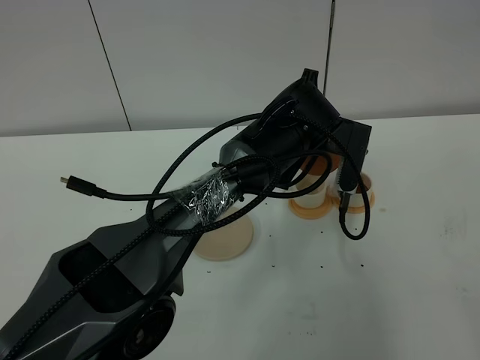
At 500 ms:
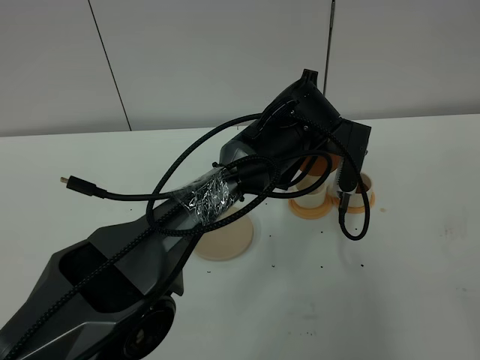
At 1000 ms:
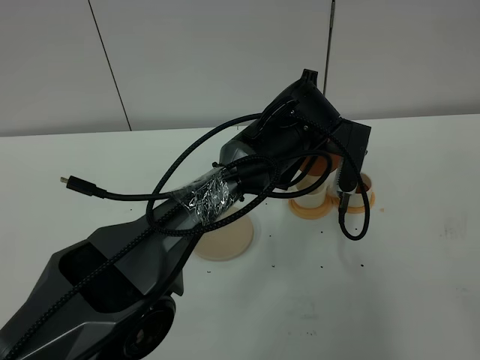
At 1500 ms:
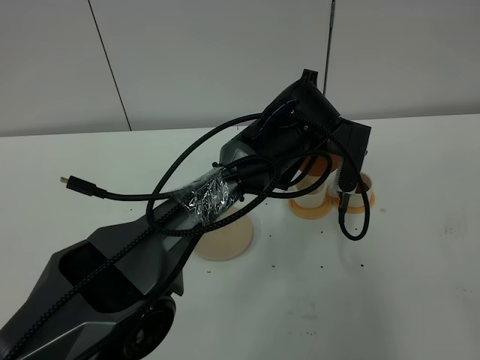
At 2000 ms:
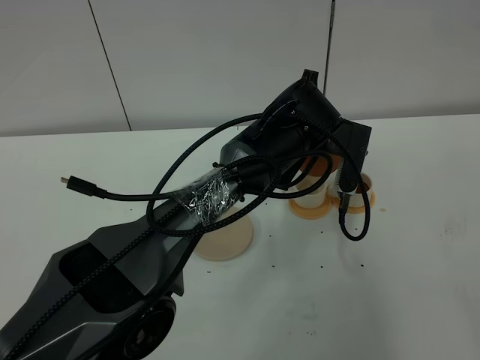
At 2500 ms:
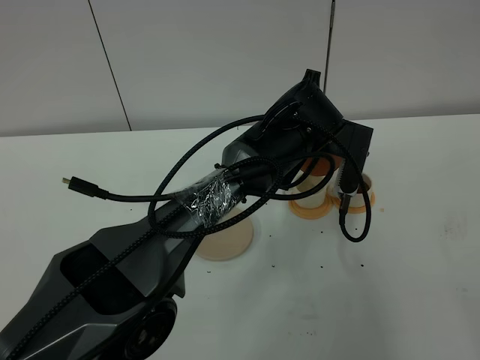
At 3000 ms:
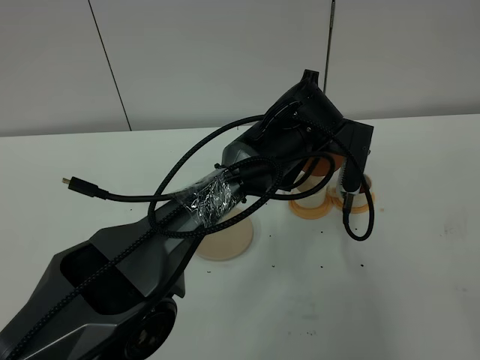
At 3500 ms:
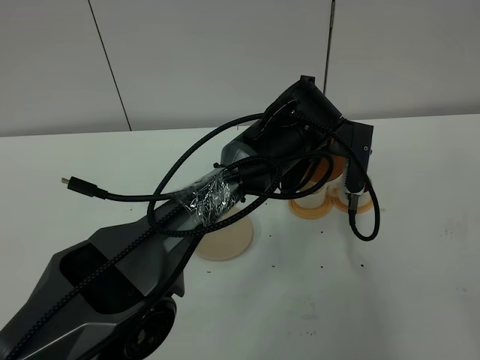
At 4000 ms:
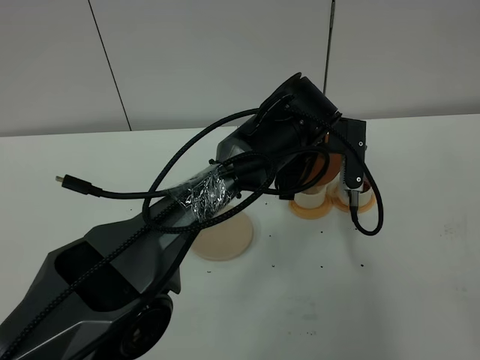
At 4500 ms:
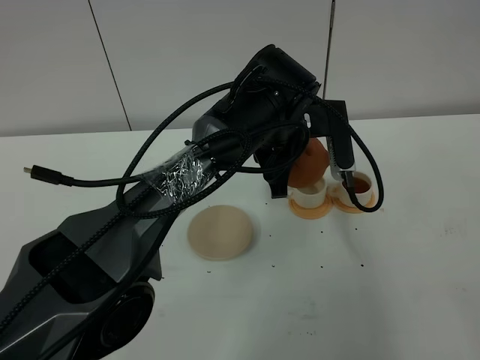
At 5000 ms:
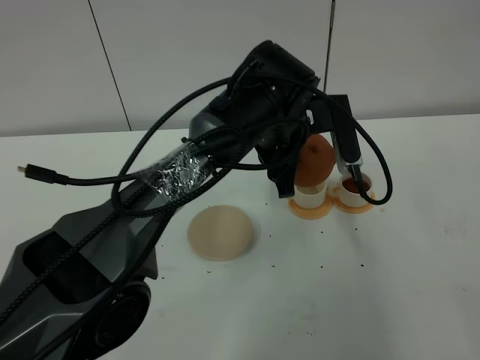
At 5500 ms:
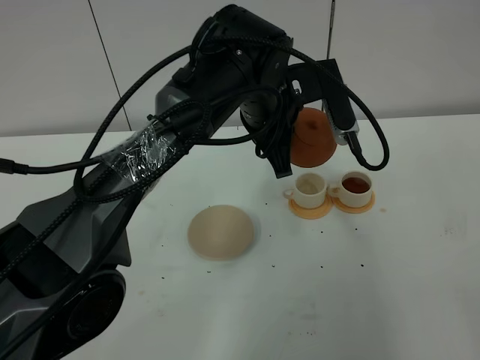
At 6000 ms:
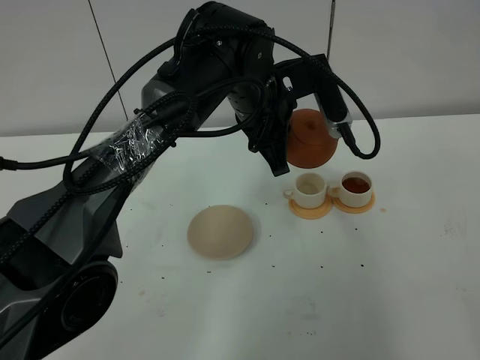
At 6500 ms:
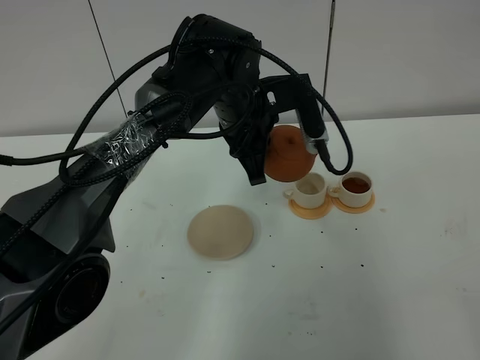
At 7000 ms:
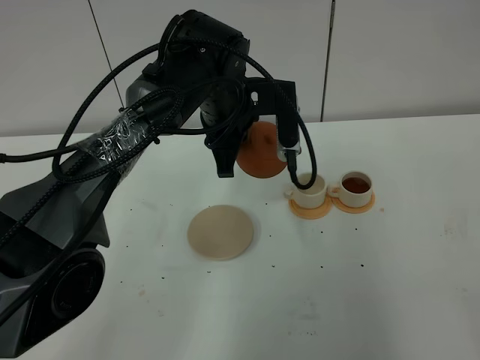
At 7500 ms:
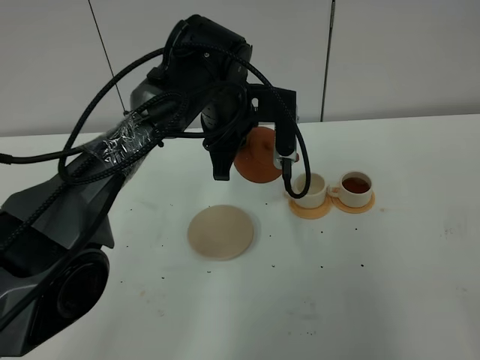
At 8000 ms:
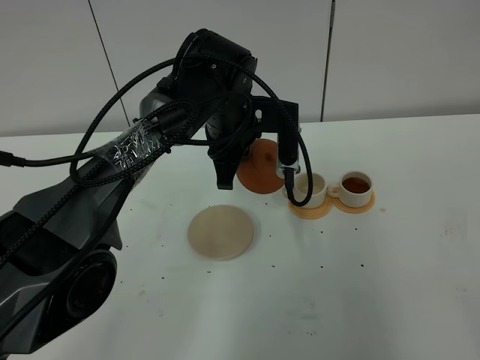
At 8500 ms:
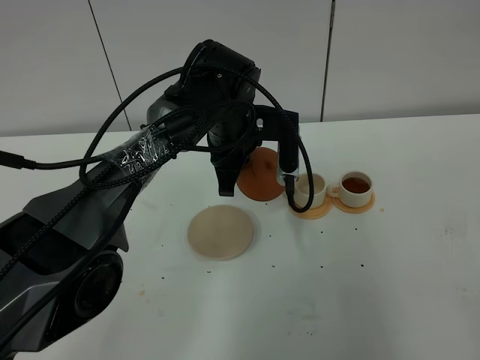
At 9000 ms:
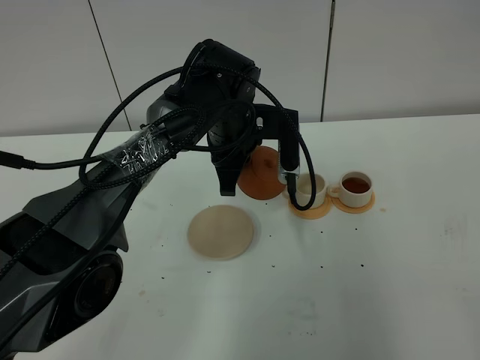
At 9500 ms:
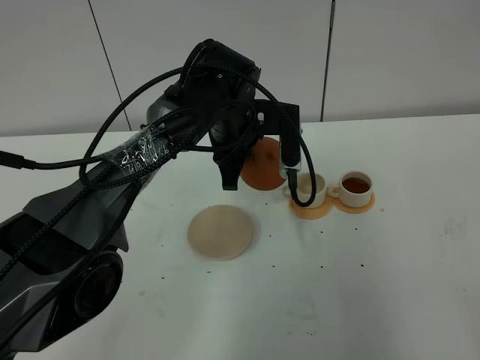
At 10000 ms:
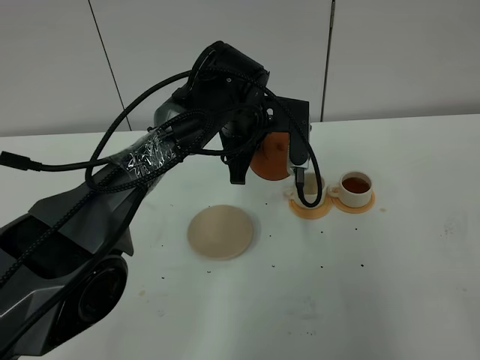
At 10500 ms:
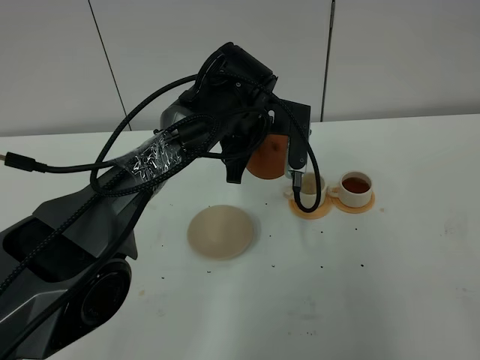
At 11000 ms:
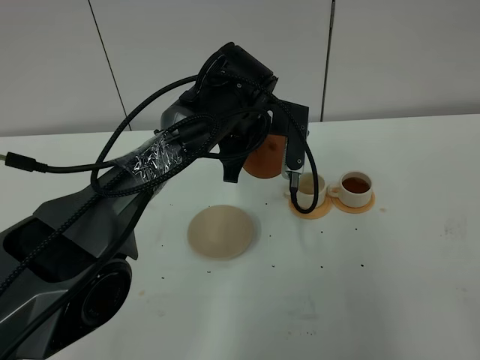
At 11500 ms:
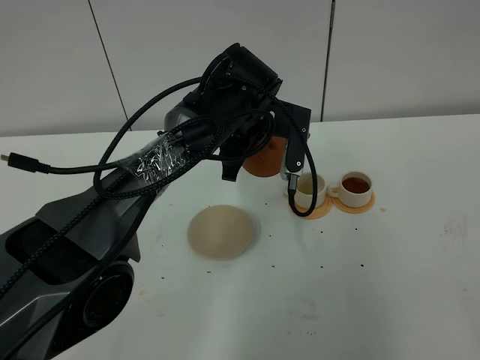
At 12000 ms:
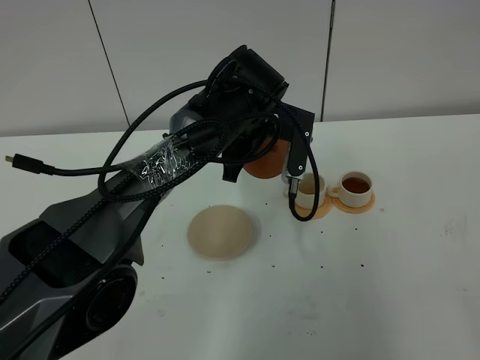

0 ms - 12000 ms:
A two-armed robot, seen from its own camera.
Task of the whole recording: grasp the brown teapot and pour the tea into the two white teacups one by one, put the brown teapot back in its original place.
0 ms - 2000 ms: Both grippers stay about where they are.
2000 ms - 4000 ms: The grippers move only a little.
4000 ms - 6000 ms: The left gripper shifts about 10 cm upward and to the left.
6000 ms - 8000 ms: The left gripper ends up approximately 5 cm from where it was.
8000 ms - 12000 ms: The grippers move only a little.

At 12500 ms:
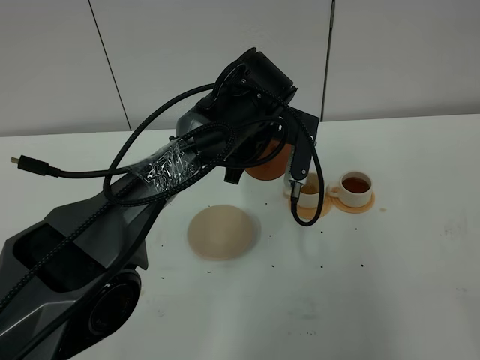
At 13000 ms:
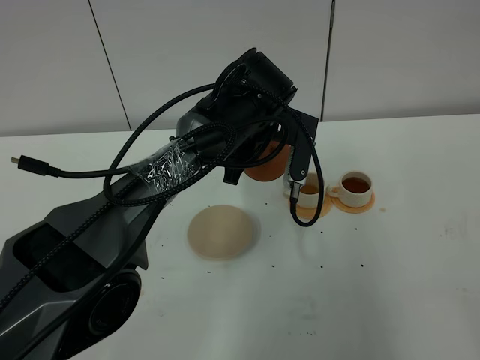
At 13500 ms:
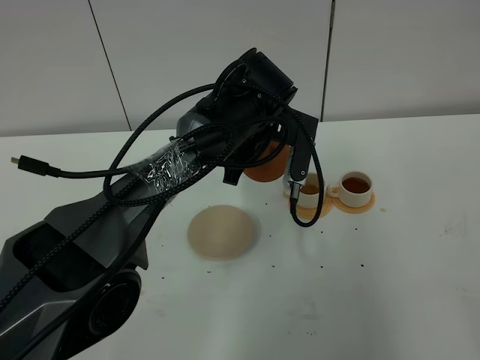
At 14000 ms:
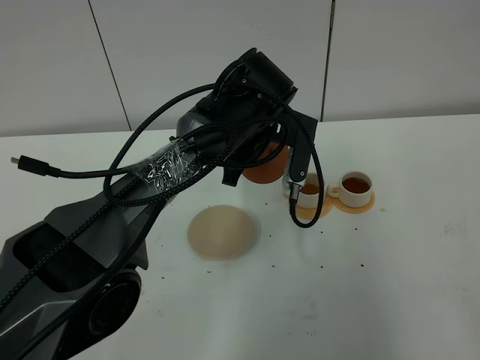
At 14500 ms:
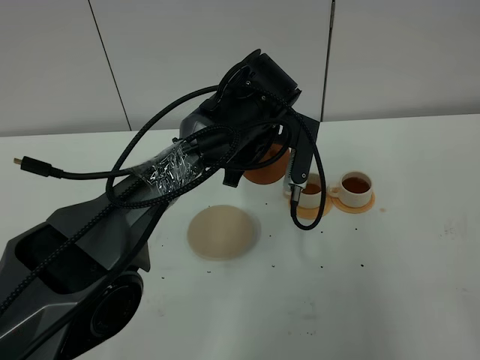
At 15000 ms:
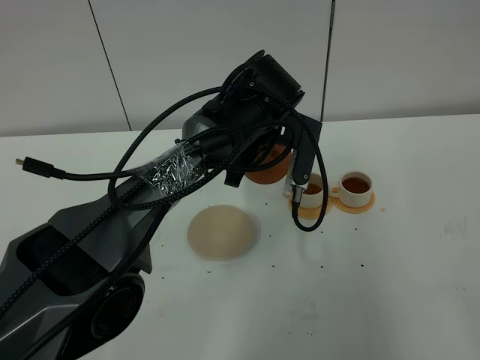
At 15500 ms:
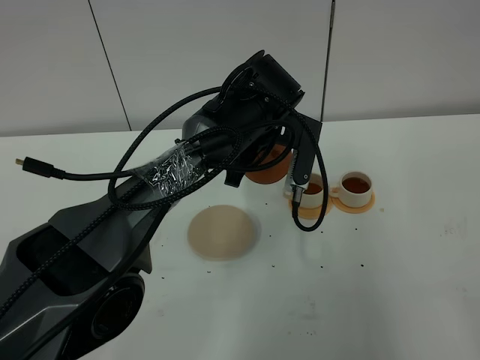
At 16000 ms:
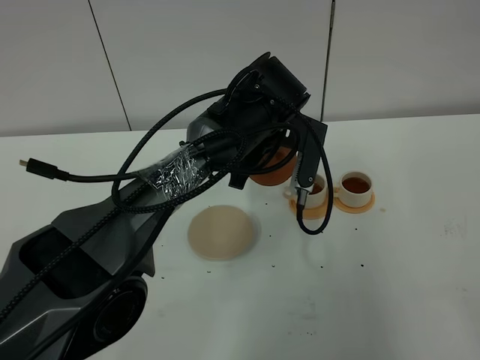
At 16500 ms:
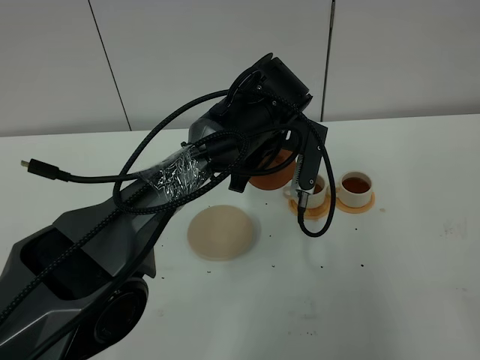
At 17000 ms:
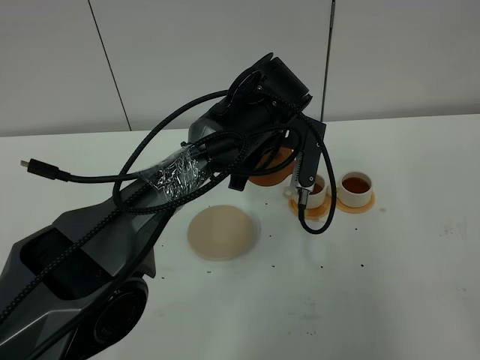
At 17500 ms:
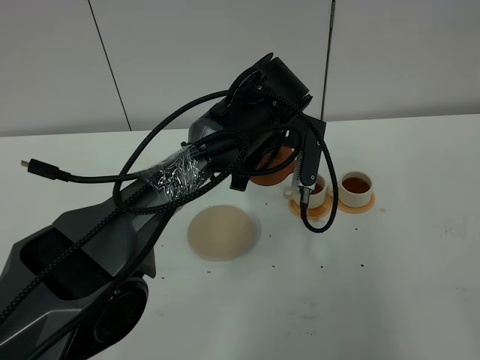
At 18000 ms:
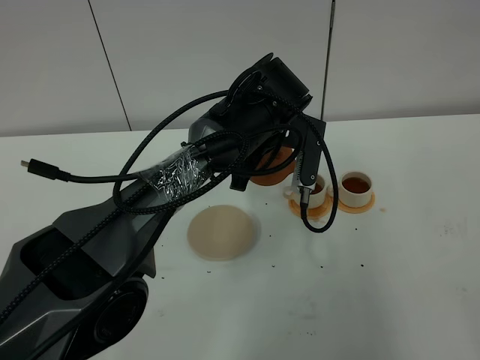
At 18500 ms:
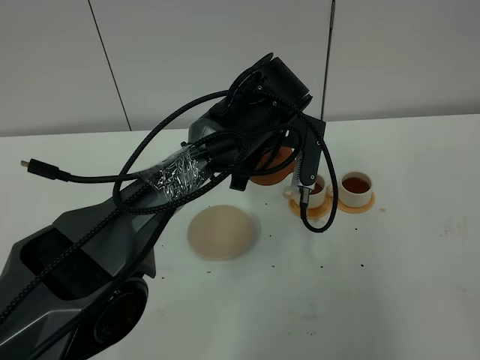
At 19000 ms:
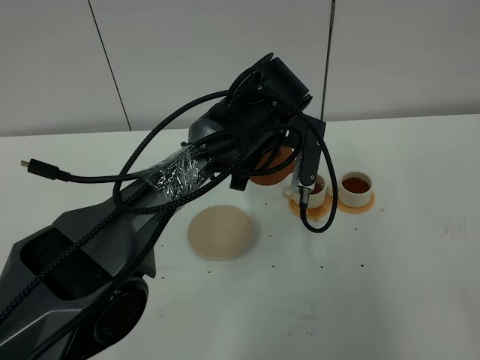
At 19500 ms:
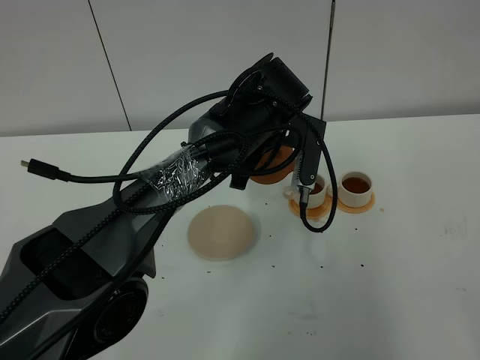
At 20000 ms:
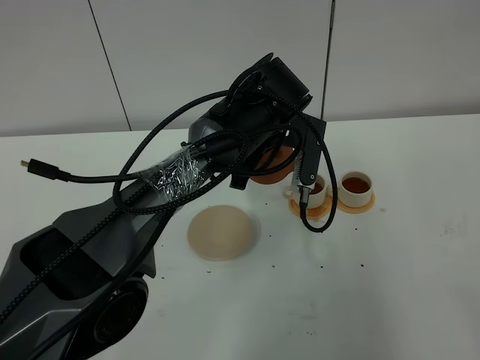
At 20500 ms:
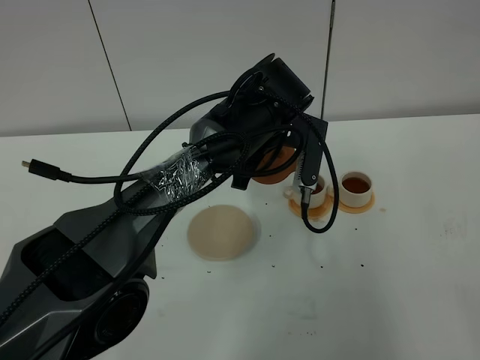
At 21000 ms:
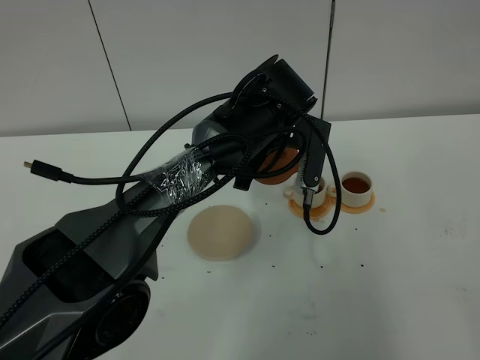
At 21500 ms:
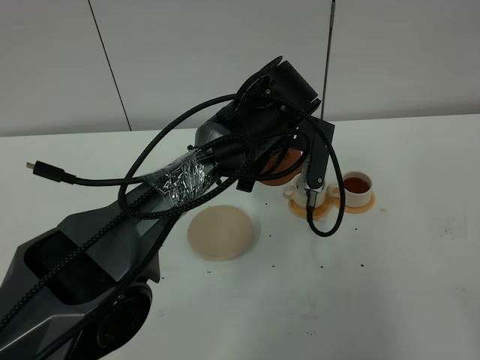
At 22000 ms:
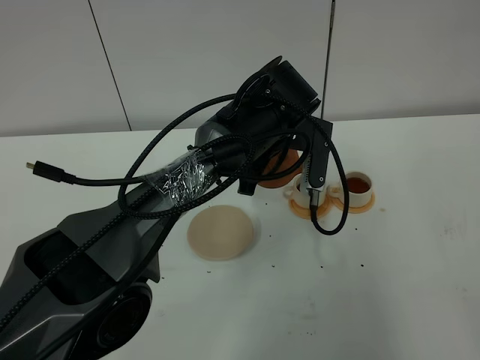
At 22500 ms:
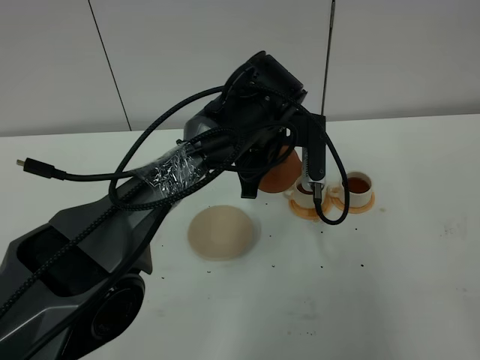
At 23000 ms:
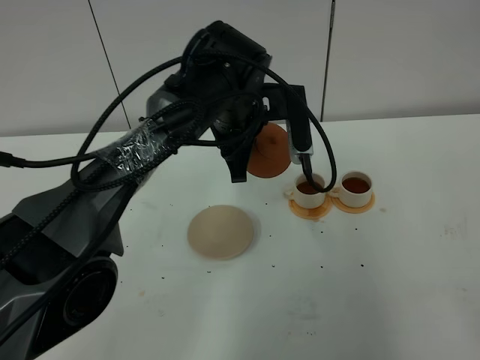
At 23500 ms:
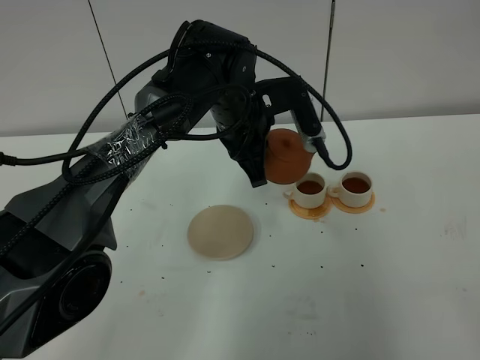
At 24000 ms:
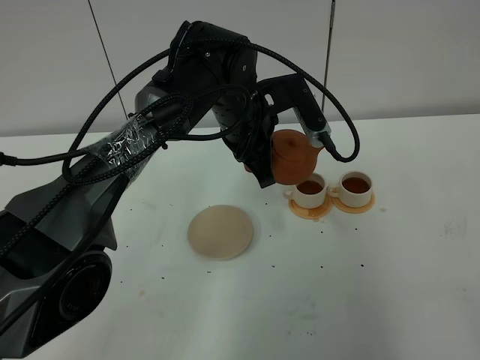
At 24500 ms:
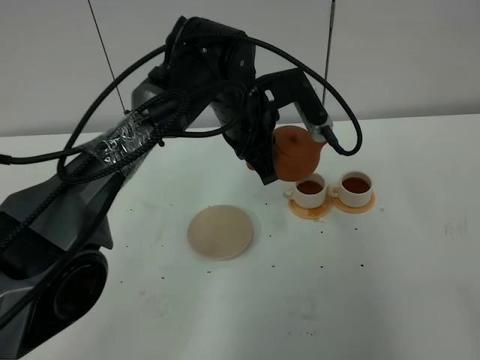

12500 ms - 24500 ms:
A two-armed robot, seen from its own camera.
Task of the whole recording: grasp the brown teapot and pour the tea into the two white teacups one by one, put the brown teapot back in its original place.
Step, 12500 ms - 23500 ms: Pour tea into the teacup with the left gripper.
12500 ms - 14500 ms: Both grippers stay about where they are.
14500 ms - 18500 ms: Both grippers stay about where they are.
18500 ms - 20500 ms: Neither gripper changes place.
20500 ms - 22500 ms: There are only small adjustments of the grippers.

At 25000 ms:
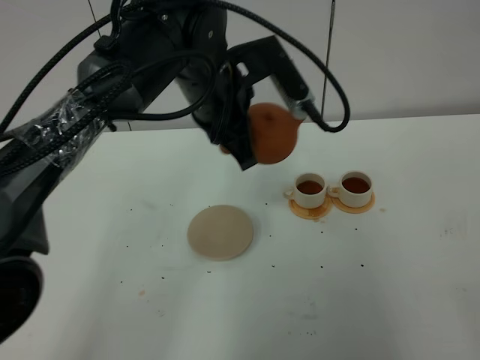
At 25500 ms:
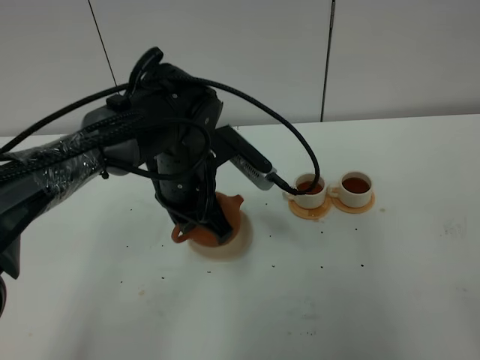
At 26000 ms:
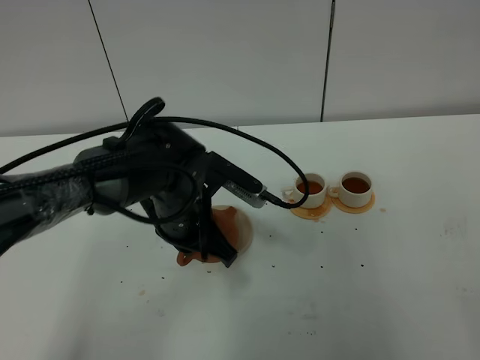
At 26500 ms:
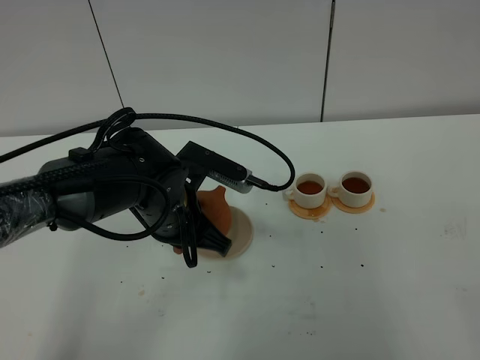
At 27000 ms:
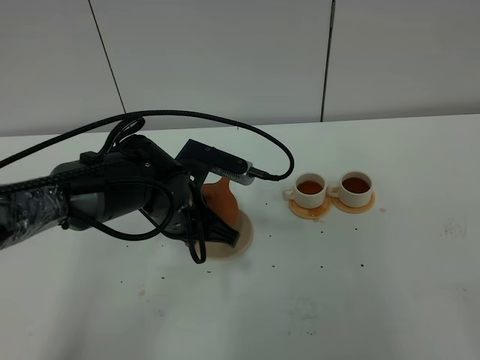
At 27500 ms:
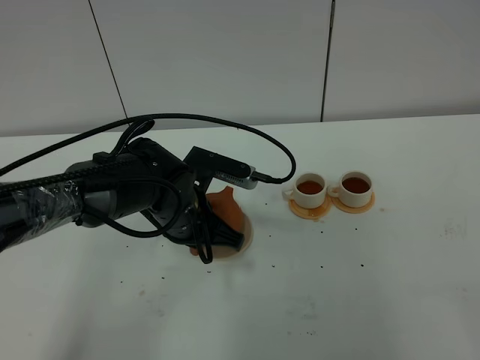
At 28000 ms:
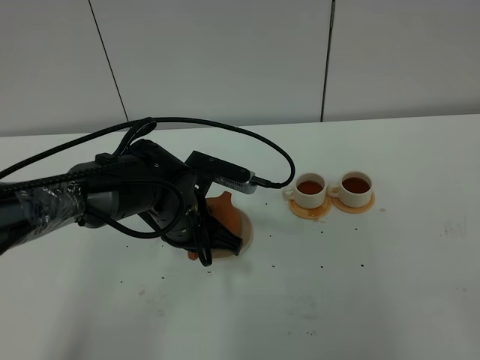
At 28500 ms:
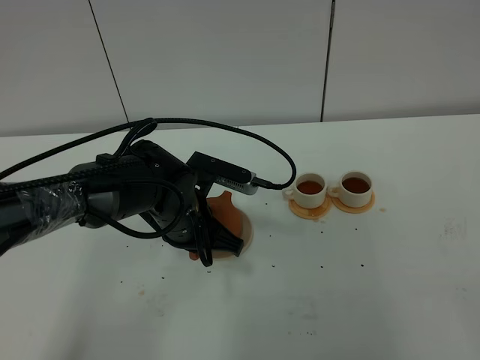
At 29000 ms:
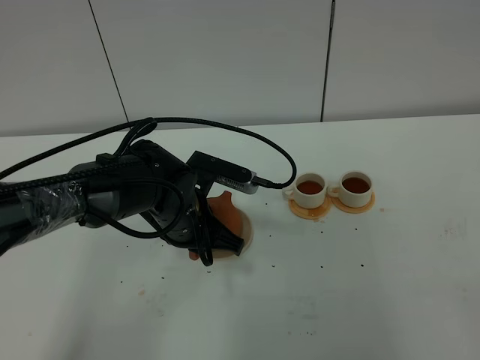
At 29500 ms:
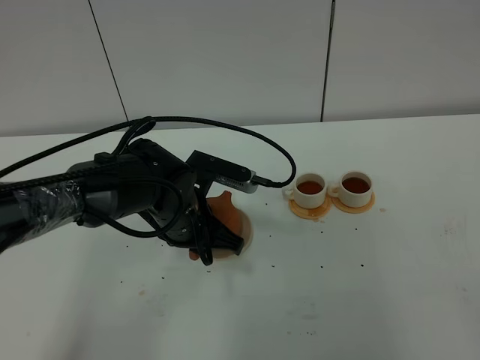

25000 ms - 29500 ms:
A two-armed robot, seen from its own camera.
Task of the whole recording: grasp the brown teapot and pour the tea into the two white teacups one by one, put the brown teapot back in its original place.
25000 ms - 27000 ms: The left gripper goes about 15 cm downward and backward.
27000 ms - 29500 ms: The left gripper opens up.
